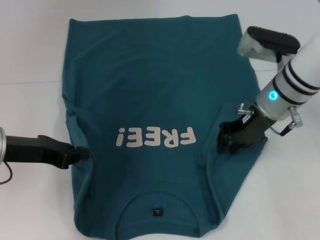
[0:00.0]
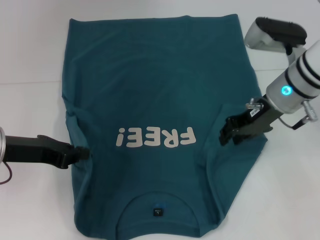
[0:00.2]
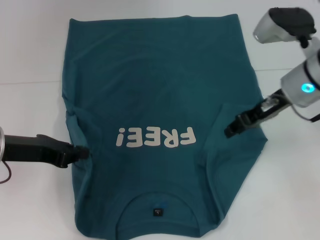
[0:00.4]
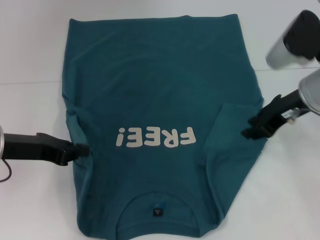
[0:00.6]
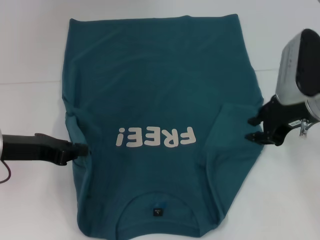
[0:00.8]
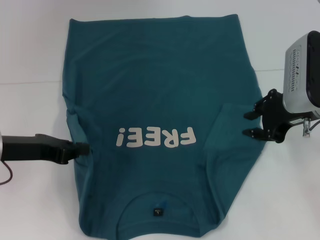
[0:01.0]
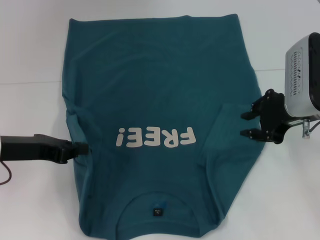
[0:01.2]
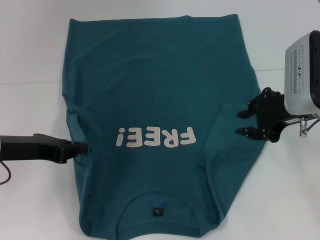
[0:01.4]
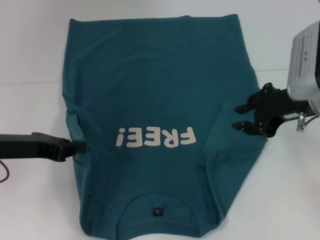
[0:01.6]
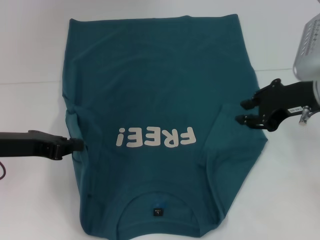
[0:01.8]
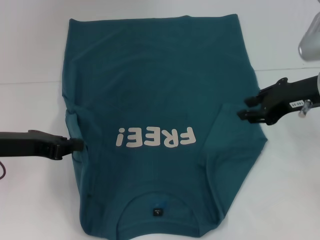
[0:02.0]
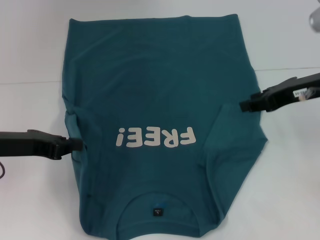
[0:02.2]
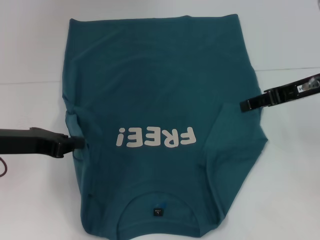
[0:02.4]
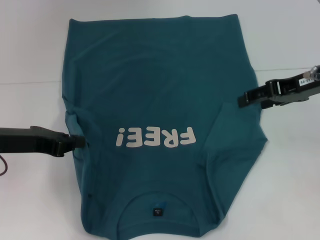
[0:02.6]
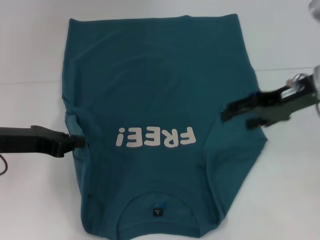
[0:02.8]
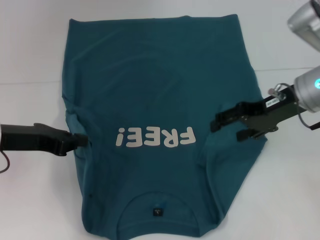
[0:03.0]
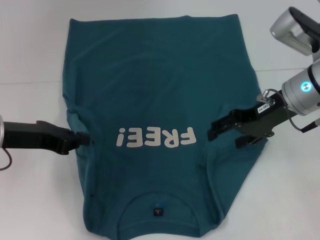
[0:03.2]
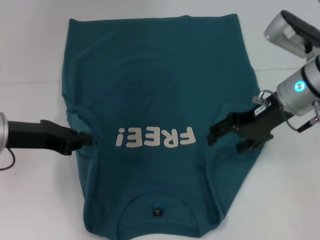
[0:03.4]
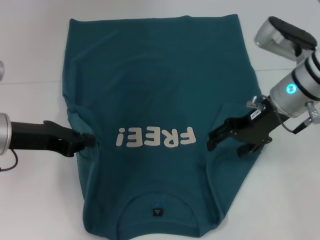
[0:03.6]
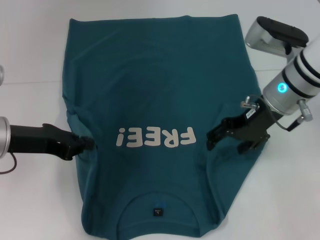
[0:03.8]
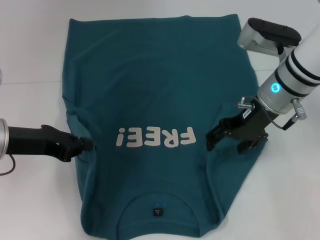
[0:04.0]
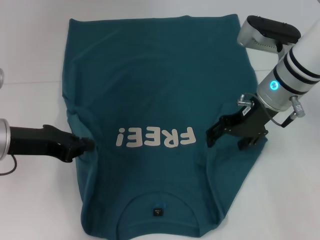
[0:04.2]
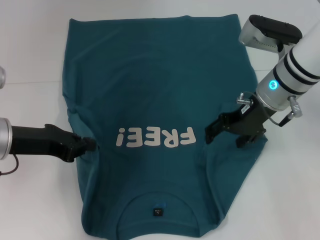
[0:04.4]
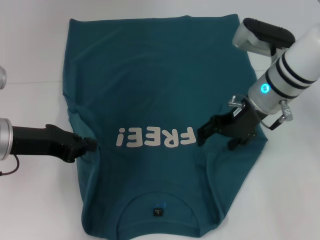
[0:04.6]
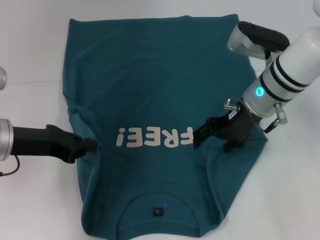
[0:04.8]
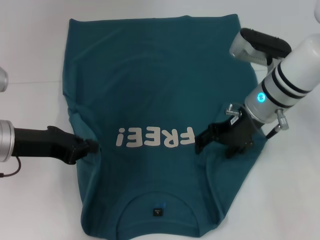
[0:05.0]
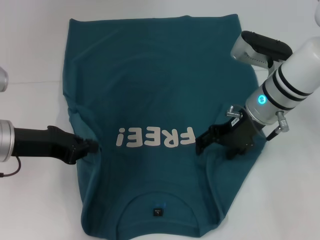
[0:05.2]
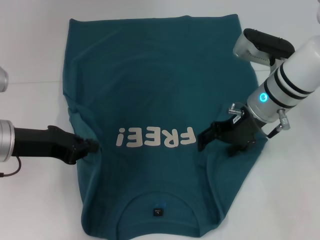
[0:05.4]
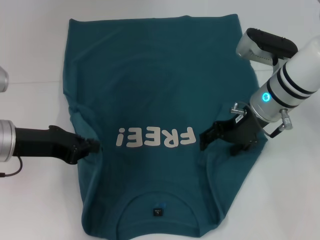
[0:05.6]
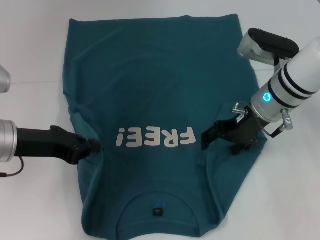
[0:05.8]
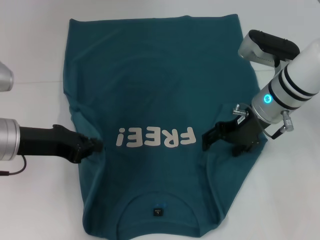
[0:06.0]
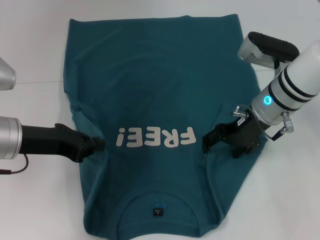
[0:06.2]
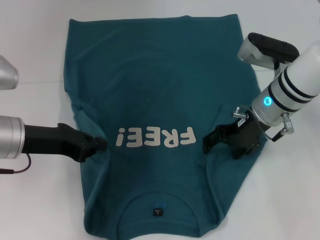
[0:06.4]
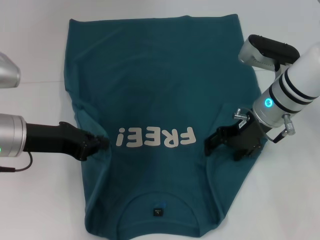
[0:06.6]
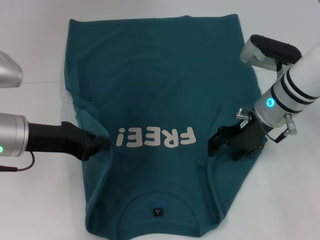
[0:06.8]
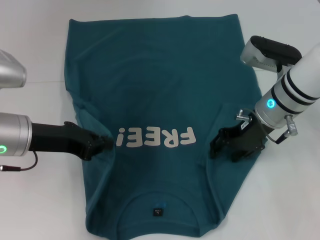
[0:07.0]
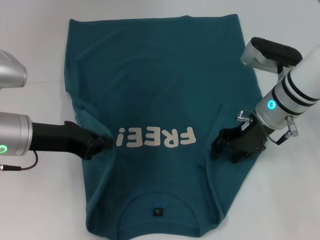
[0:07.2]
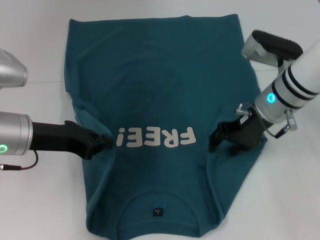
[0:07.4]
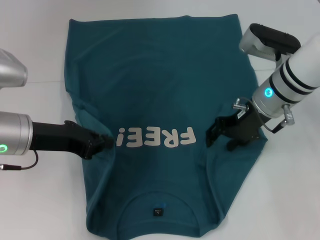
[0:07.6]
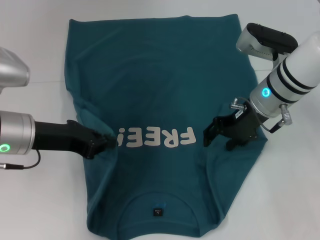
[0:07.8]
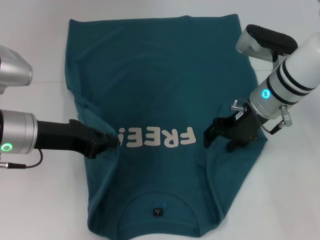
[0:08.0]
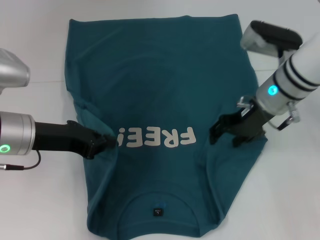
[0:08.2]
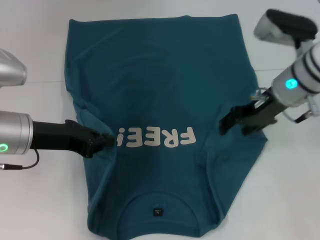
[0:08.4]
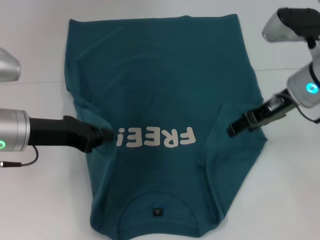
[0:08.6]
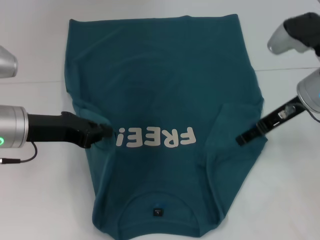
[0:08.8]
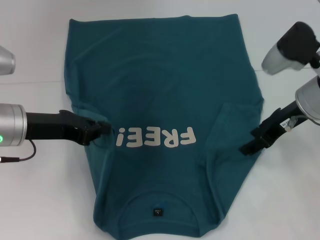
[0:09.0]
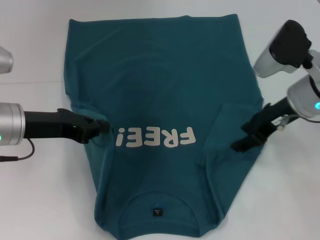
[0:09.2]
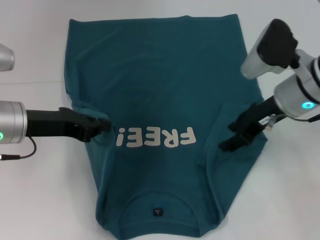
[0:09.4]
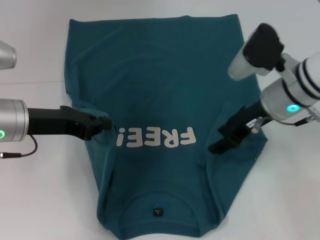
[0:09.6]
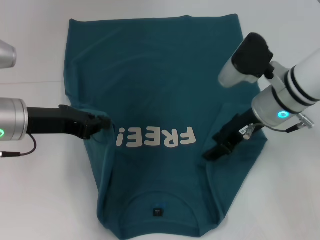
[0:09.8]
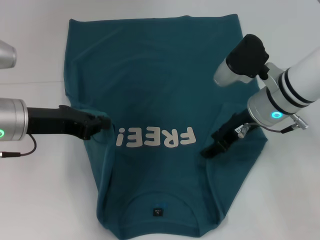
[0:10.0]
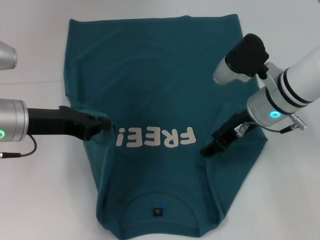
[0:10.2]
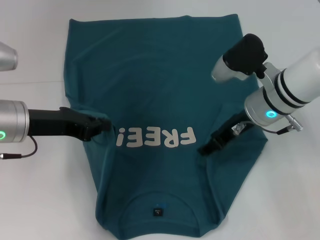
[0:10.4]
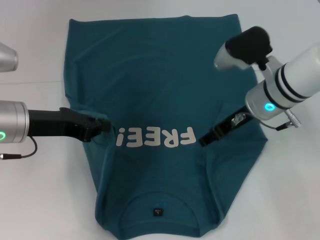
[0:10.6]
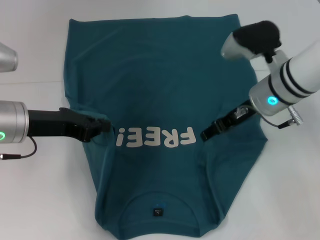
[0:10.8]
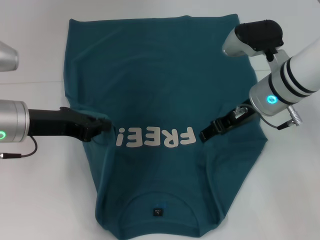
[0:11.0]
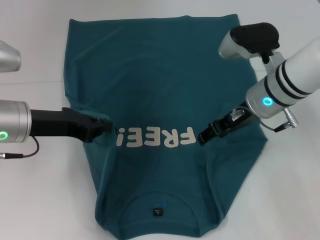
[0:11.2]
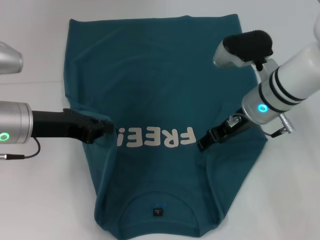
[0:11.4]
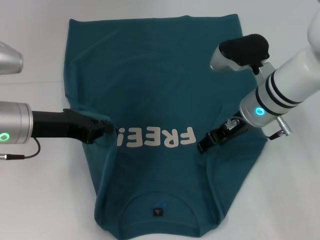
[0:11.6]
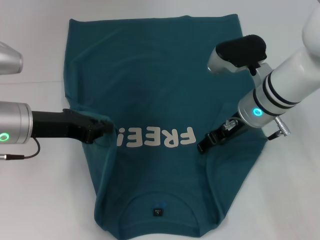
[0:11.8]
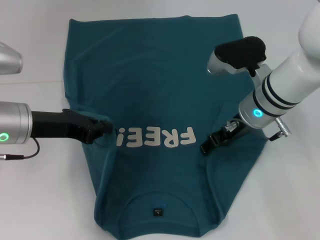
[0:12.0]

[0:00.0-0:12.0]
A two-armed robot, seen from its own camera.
0:00.0 to 0:01.6: The right gripper heads backward and to the right, covering some 10 cm.
0:01.6 to 0:03.0: The right gripper opens up.
0:03.0 to 0:04.4: The right gripper heads to the left, covering approximately 5 cm.
0:04.4 to 0:07.6: The grippers make only small movements.
0:07.6 to 0:09.0: The right gripper moves to the right, approximately 5 cm.
0:09.0 to 0:10.4: The right gripper goes roughly 5 cm to the left.

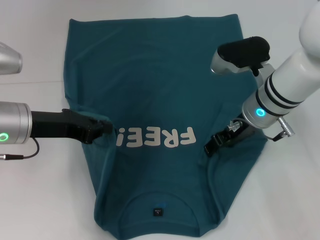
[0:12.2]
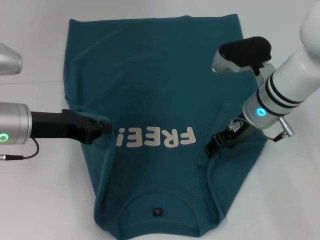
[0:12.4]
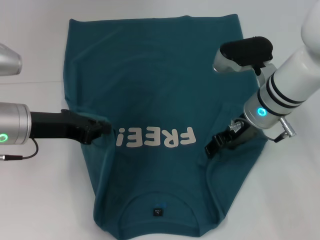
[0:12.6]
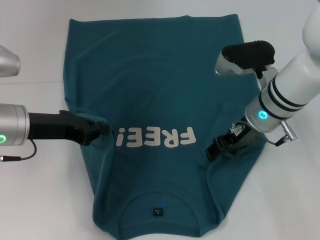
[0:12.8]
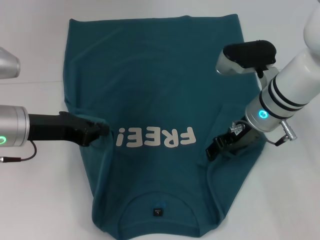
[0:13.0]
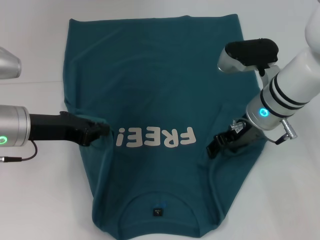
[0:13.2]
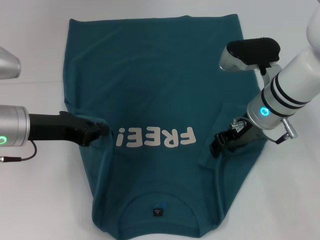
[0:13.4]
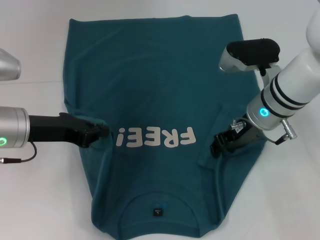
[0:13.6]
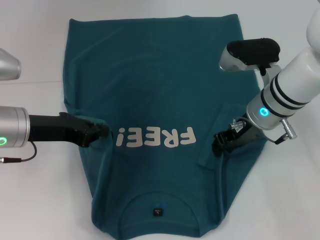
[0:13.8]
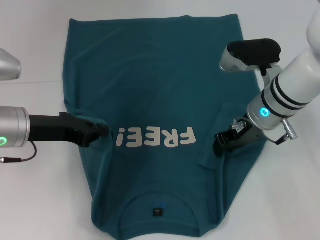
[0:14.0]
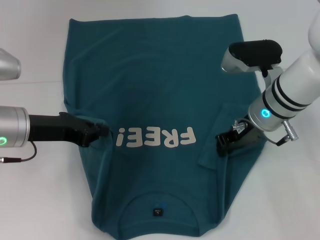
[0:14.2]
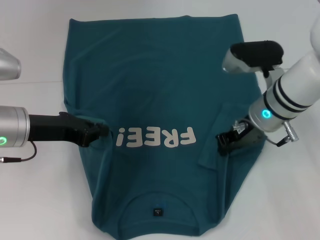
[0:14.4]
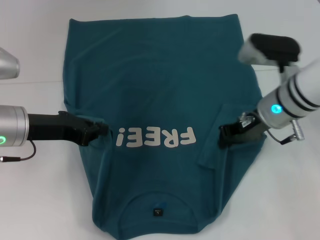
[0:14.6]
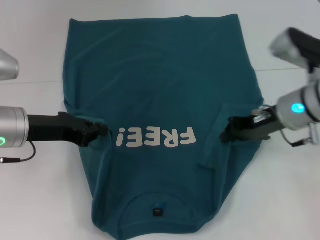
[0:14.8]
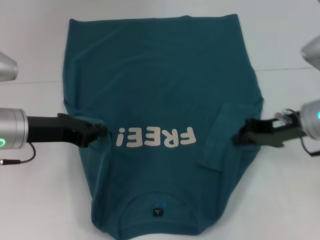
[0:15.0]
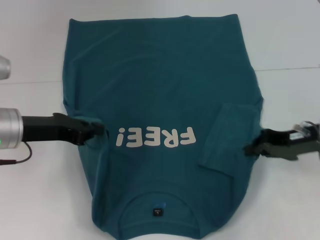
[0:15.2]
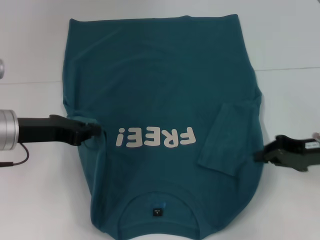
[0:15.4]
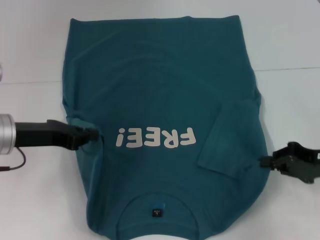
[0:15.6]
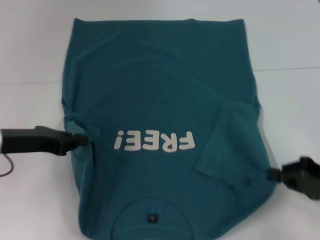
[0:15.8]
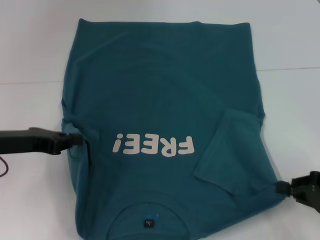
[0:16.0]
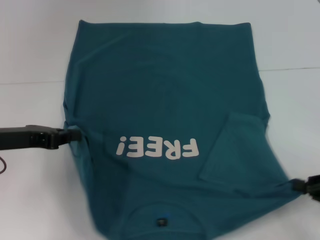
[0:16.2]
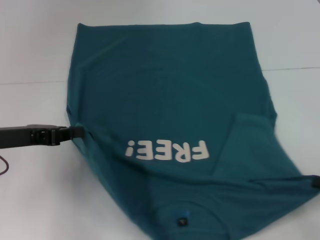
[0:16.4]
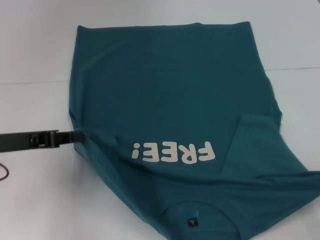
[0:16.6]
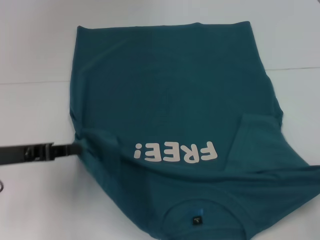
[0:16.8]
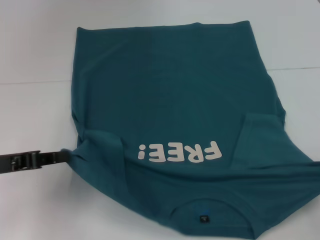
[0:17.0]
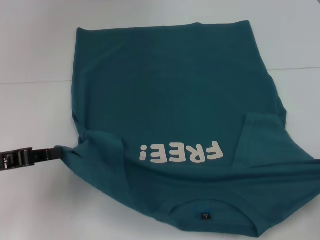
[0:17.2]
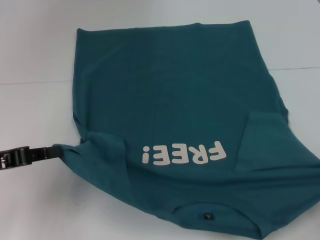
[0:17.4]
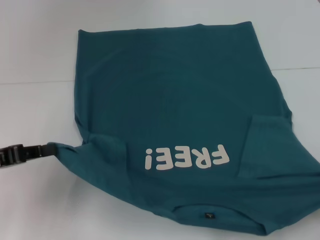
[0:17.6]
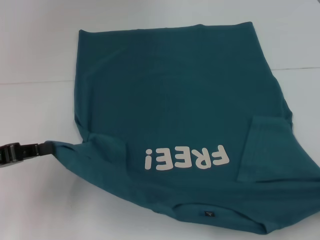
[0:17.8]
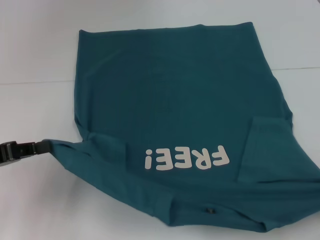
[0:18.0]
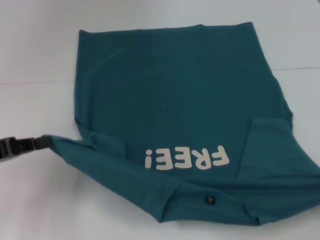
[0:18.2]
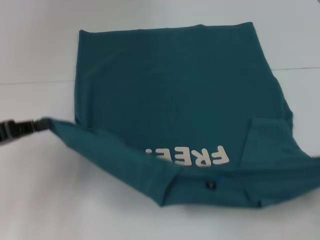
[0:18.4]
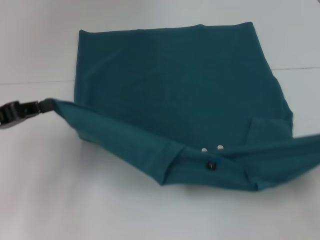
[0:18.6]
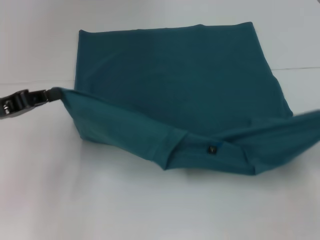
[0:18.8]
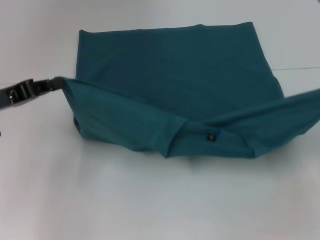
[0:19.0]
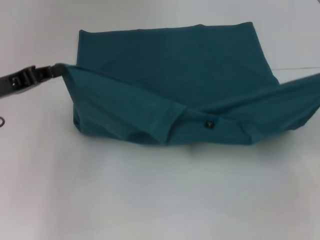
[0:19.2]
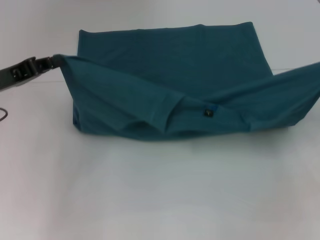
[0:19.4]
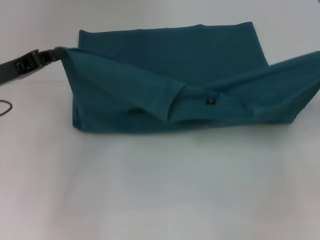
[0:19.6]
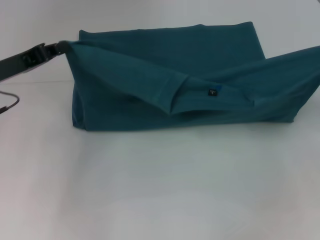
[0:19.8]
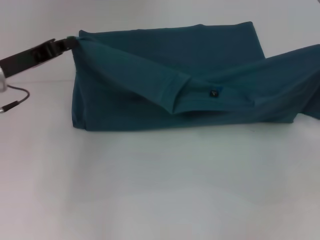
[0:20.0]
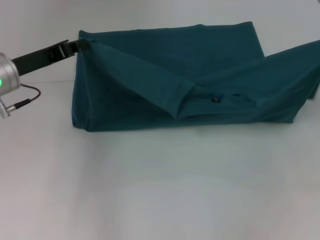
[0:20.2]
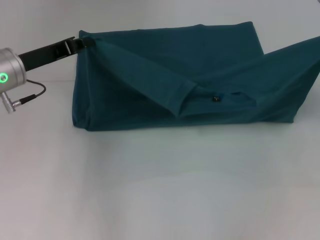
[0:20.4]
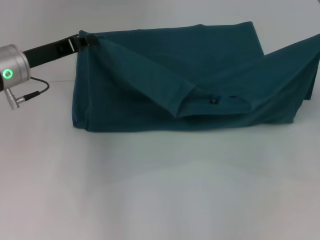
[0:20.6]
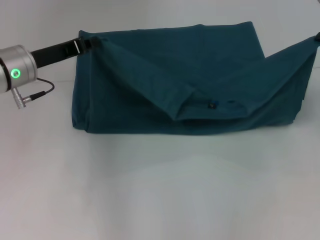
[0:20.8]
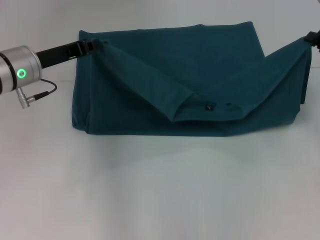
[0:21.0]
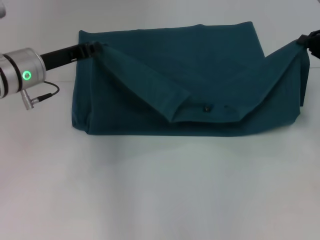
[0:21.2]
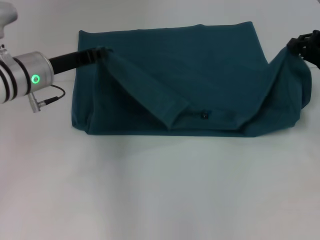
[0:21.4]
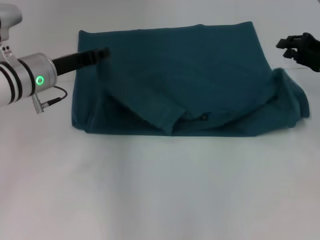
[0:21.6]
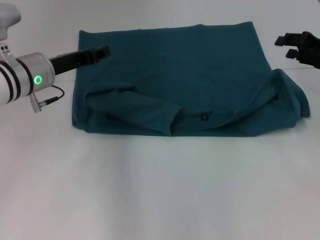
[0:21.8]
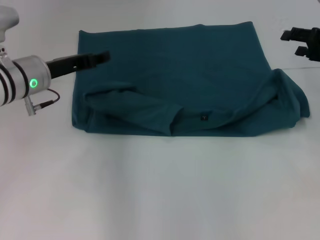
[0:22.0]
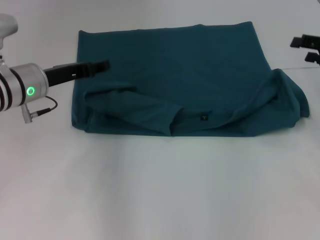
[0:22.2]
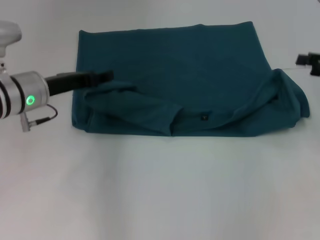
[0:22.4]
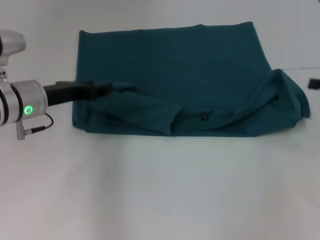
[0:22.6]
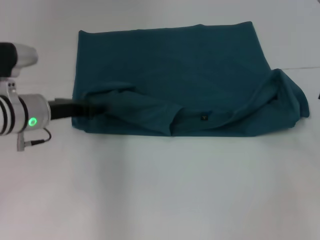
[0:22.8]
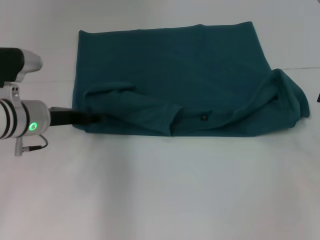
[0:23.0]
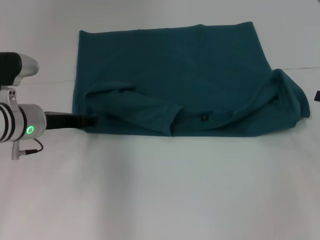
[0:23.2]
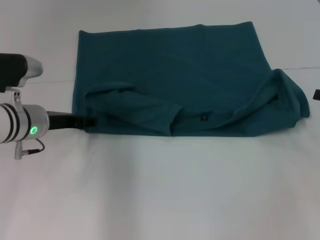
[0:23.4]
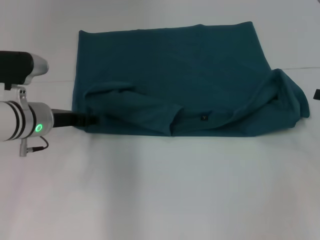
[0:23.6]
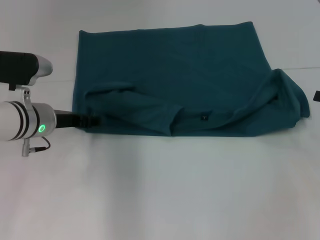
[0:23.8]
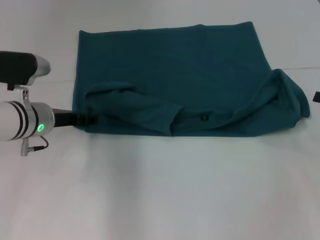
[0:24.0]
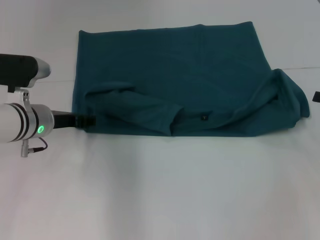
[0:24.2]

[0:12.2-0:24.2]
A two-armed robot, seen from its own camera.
Step, 0:12.2 to 0:14.6: Grab the bottom right corner with your right hand.
Step, 0:14.8 to 0:22.4: Fold the clothes to the left.
Step, 0:14.8 to 0:22.4: Fold the clothes to the right.
0:12.2 to 0:13.8: The grippers move only a little.
0:13.8 to 0:15.2: The right gripper moves to the right and backward, approximately 10 cm, and closes up.
0:15.2 to 0:16.6: The right gripper moves to the right and backward, approximately 15 cm.
0:16.6 to 0:18.2: The left gripper moves some 5 cm.
0:18.2 to 0:19.8: The right gripper shifts some 15 cm forward and upward. The left gripper travels forward and to the right by roughly 10 cm.
0:19.8 to 0:21.2: The right gripper heads forward and to the left, covering about 10 cm. Meanwhile the left gripper goes some 5 cm to the right.
0:21.2 to 0:22.6: The left gripper opens up, while the right gripper shifts some 5 cm backward, and opens.
